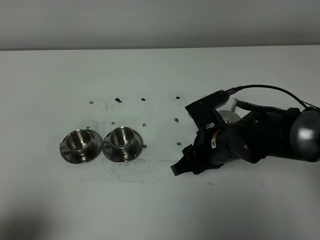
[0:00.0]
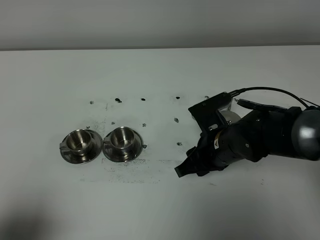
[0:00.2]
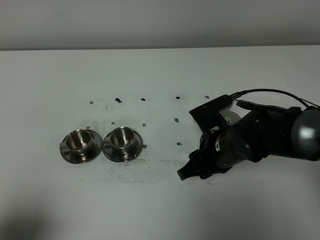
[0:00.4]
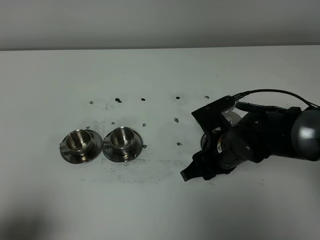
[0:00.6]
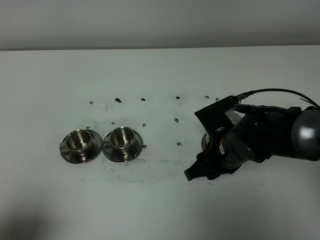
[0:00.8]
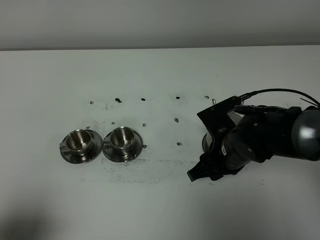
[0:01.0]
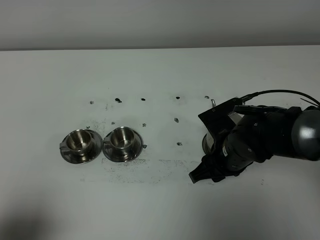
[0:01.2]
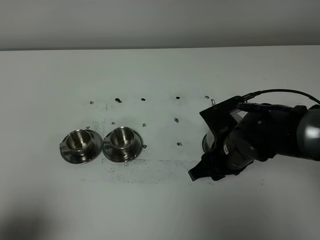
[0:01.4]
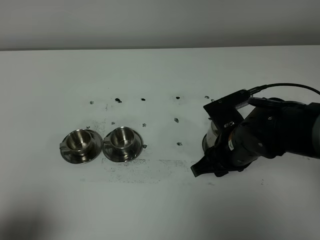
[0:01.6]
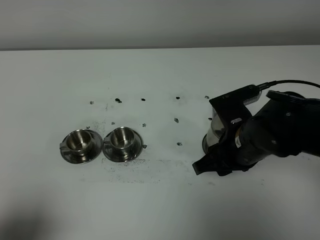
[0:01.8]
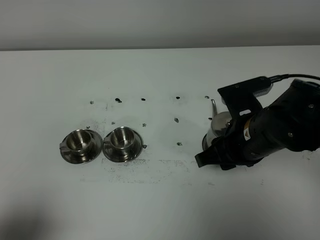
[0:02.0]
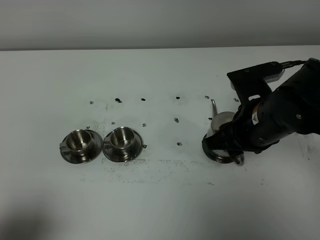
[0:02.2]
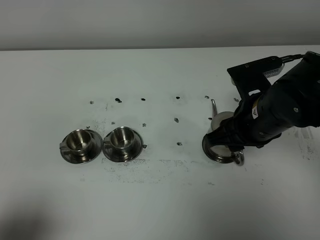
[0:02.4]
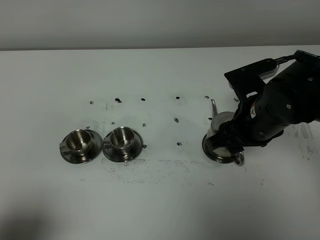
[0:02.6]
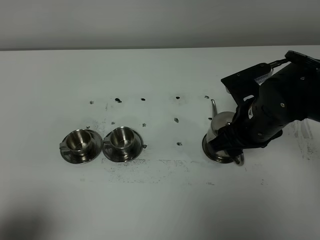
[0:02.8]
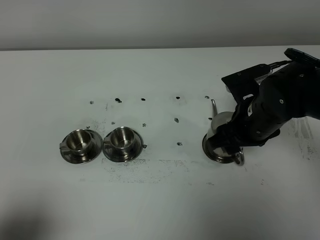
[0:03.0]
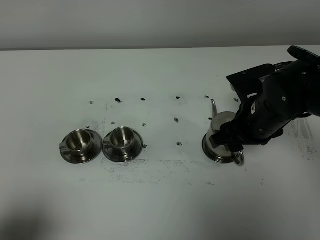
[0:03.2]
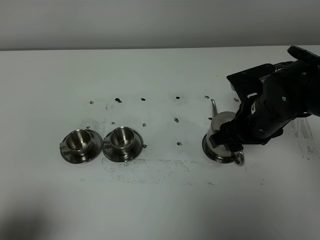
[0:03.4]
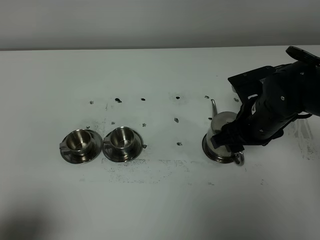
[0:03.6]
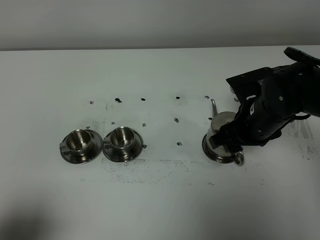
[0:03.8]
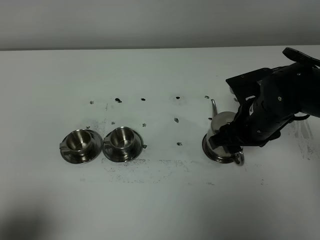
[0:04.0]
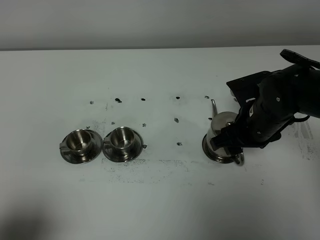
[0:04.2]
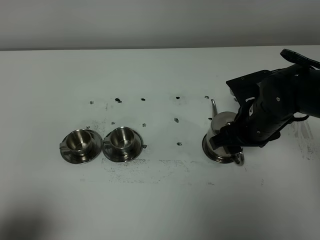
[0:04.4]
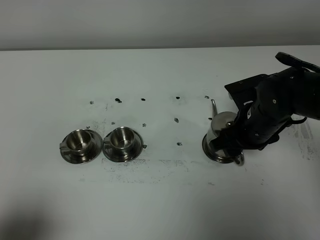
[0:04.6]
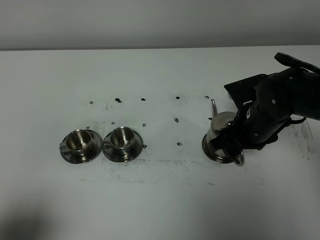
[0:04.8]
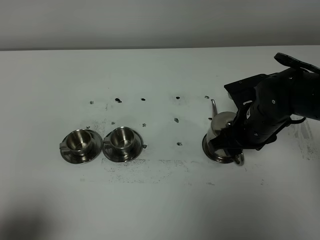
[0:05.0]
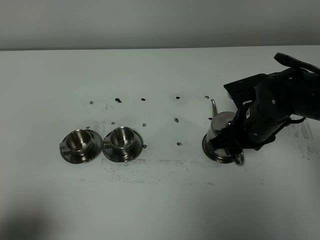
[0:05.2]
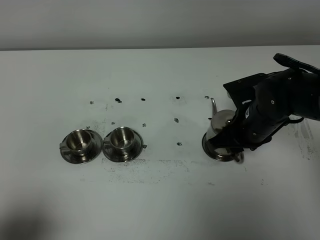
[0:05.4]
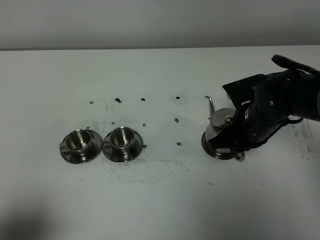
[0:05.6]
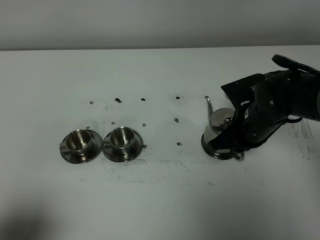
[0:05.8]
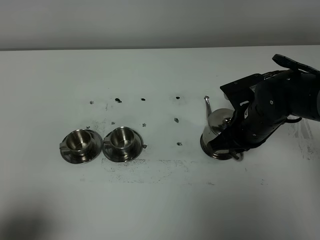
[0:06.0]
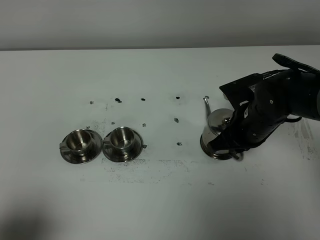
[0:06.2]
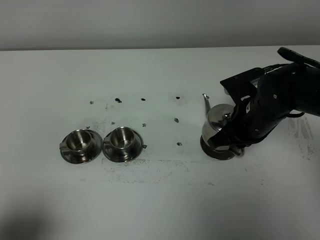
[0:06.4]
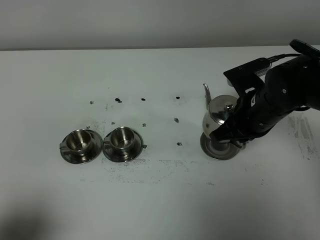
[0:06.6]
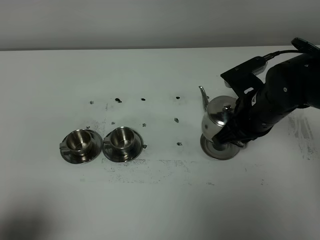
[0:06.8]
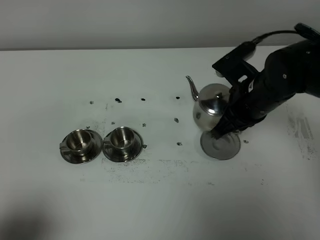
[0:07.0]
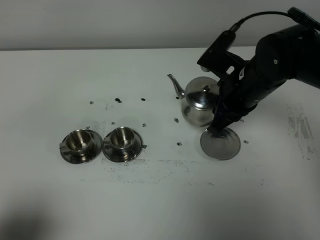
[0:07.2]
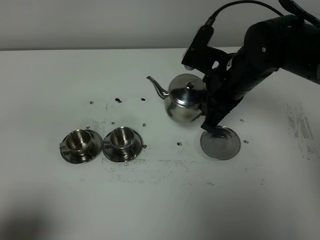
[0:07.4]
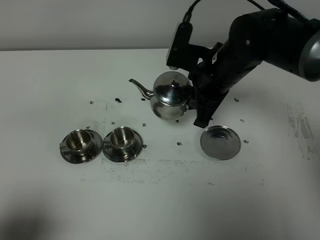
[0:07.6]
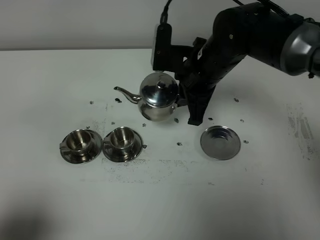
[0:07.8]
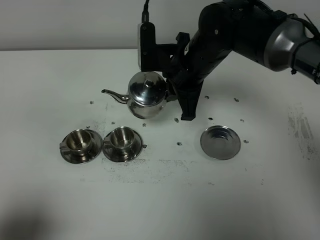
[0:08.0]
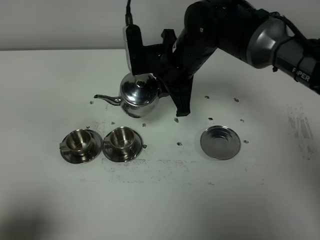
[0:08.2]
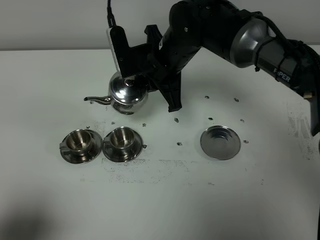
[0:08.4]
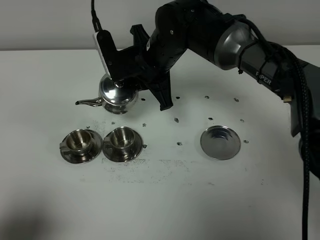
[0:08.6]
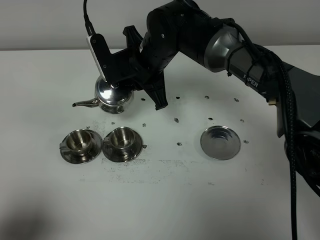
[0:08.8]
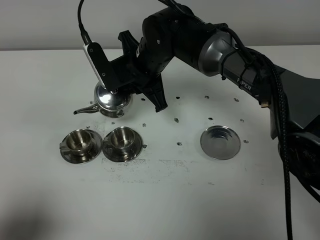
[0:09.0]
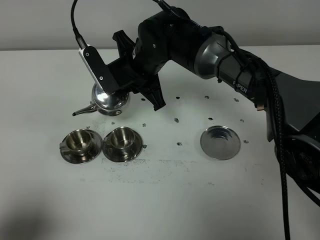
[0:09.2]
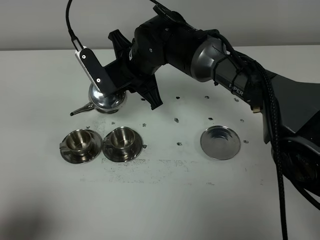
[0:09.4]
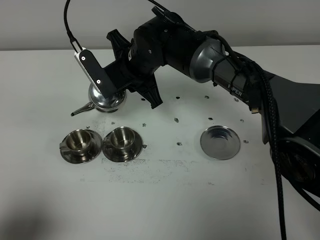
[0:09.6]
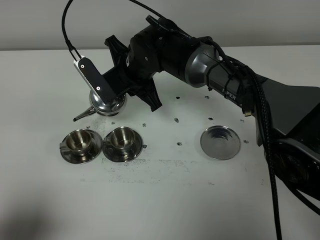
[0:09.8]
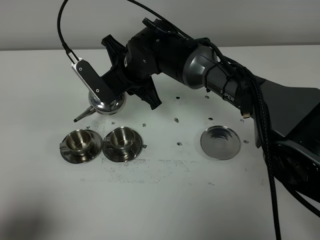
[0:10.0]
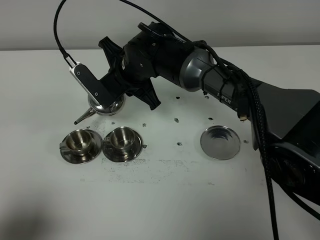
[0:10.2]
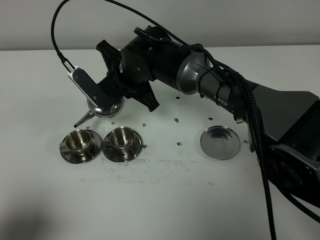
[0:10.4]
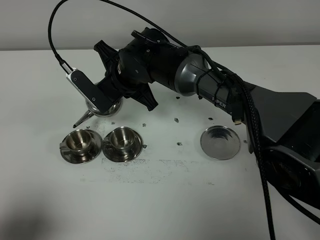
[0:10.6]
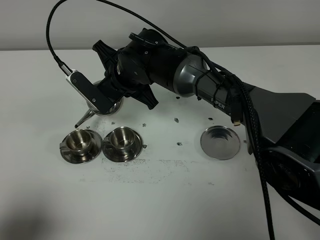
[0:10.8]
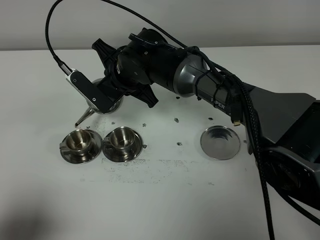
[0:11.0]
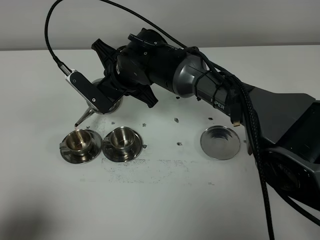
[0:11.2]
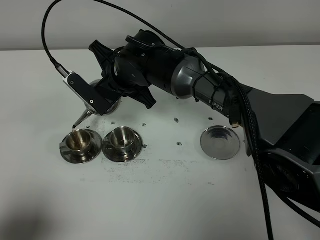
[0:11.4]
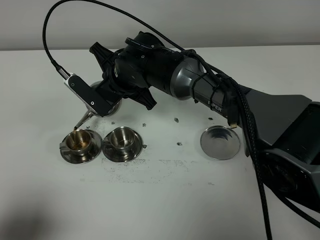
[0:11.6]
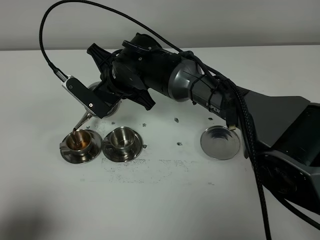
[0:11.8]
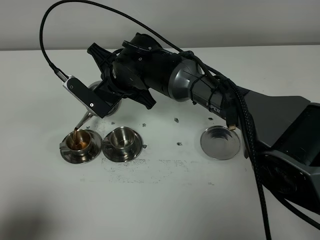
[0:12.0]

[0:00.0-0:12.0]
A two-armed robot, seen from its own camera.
Task of the whole recording: grasp the stainless steel teapot and pour the tea into the two stainless steel teacups one by one, put the stainless steel teapot back in its original place.
Step, 0:00.0 to 0:06.4: Pick up the teapot with the right gripper.
0:00.0 to 0:01.6: The grippers move only a little.
0:01.6 to 0:03.0: The right gripper ends up about 5 cm from where it was, and opens its fingers.
0:03.0 to 0:04.4: There are only small adjustments of the grippers.
0:04.4 to 0:06.0: The right gripper closes.
0:06.0 to 0:07.6: The right gripper goes about 10 cm upward and to the left.
0:07.6 to 0:09.0: The right gripper travels to the left by approximately 10 cm.
0:10.4 to 0:12.0: There are only small adjustments of the grippers.

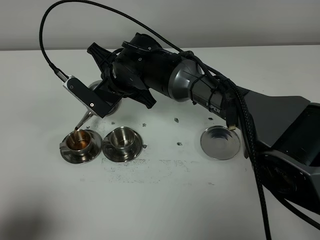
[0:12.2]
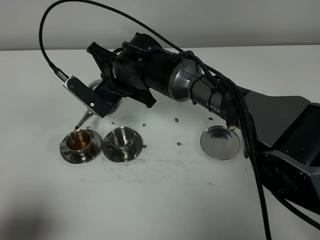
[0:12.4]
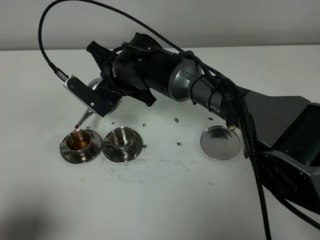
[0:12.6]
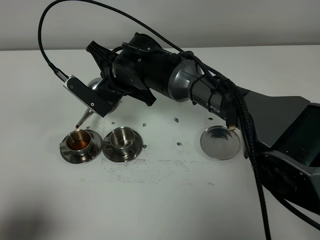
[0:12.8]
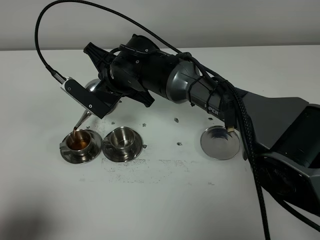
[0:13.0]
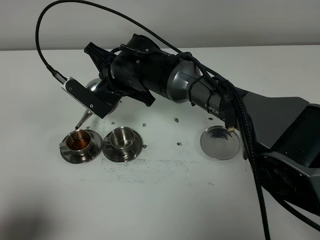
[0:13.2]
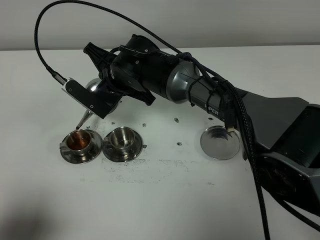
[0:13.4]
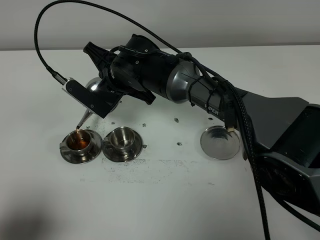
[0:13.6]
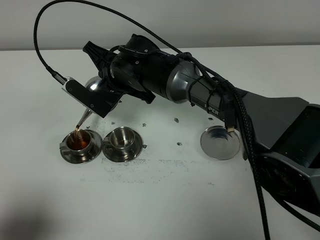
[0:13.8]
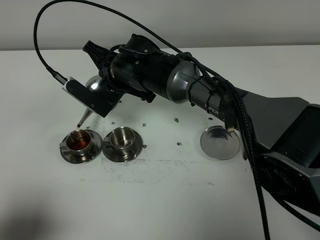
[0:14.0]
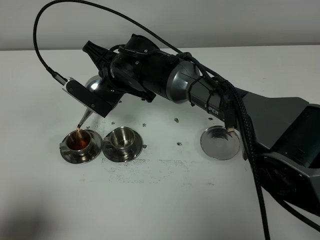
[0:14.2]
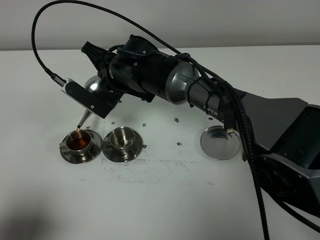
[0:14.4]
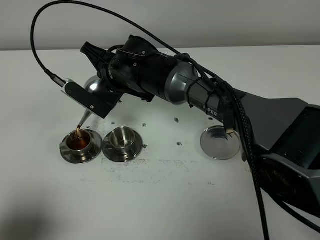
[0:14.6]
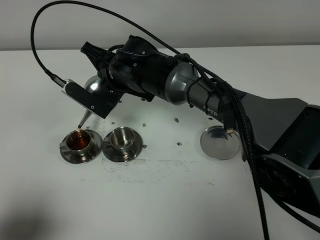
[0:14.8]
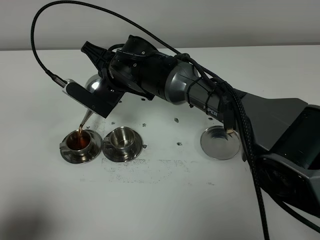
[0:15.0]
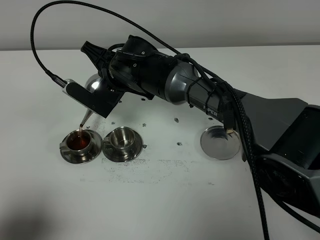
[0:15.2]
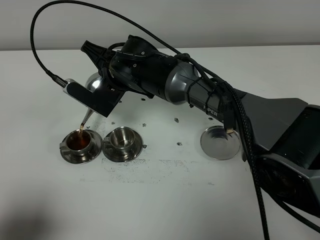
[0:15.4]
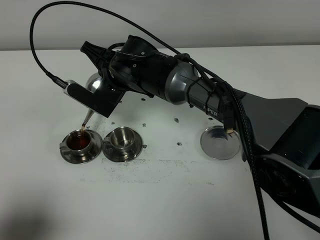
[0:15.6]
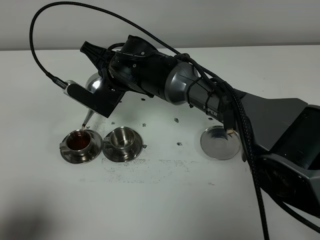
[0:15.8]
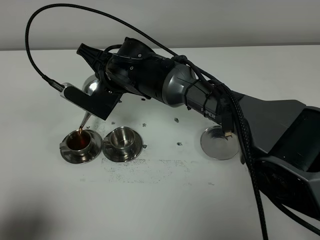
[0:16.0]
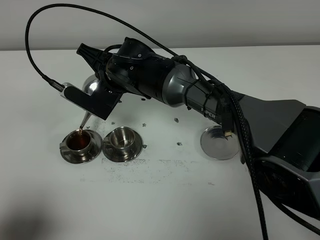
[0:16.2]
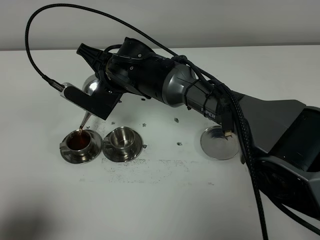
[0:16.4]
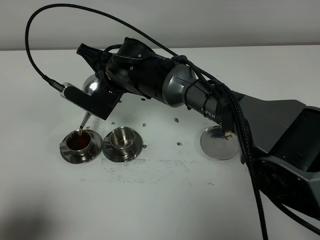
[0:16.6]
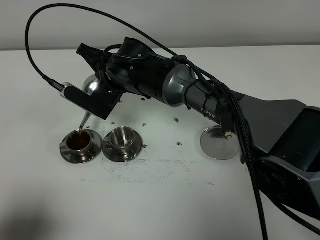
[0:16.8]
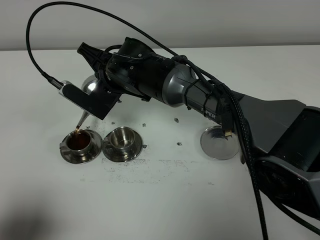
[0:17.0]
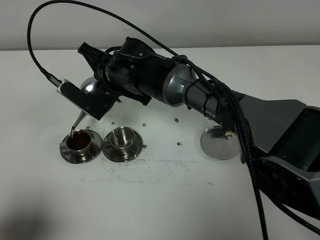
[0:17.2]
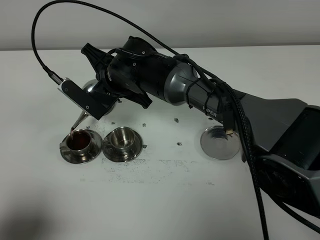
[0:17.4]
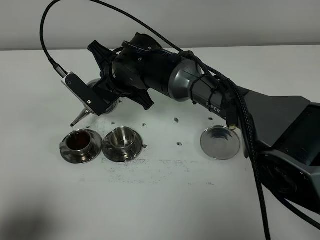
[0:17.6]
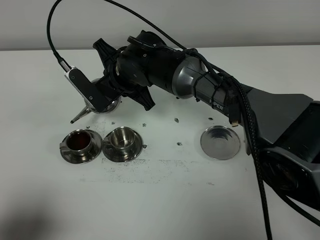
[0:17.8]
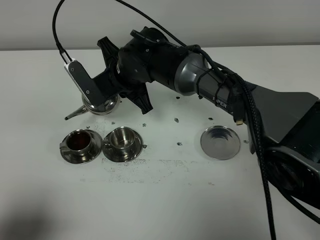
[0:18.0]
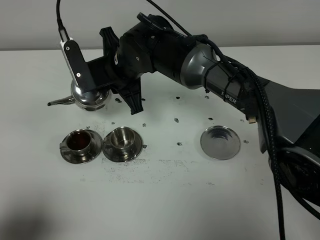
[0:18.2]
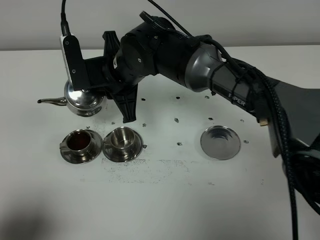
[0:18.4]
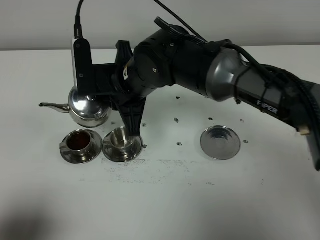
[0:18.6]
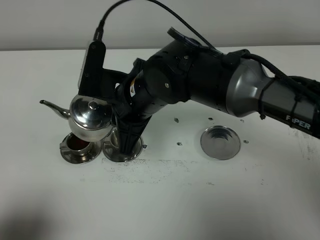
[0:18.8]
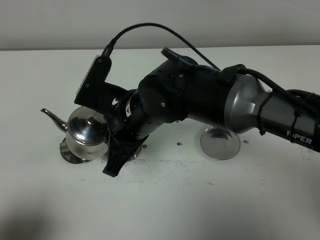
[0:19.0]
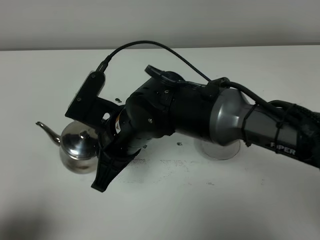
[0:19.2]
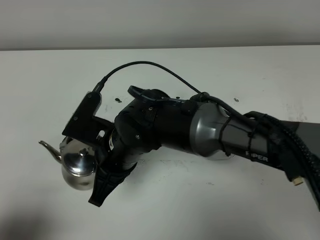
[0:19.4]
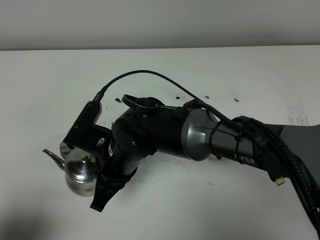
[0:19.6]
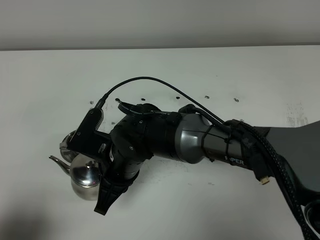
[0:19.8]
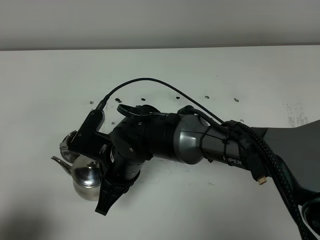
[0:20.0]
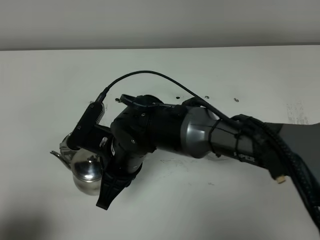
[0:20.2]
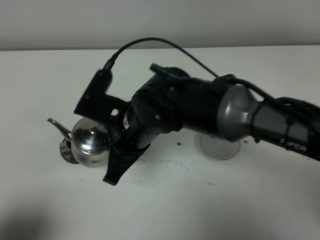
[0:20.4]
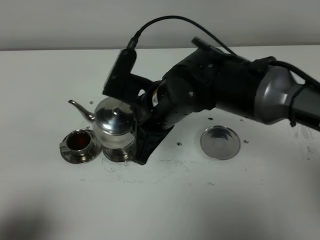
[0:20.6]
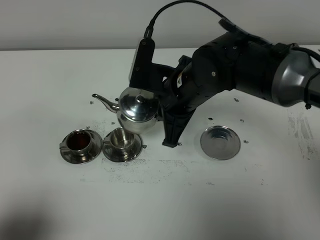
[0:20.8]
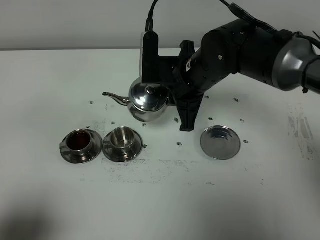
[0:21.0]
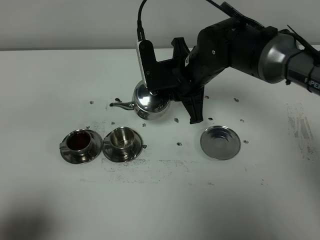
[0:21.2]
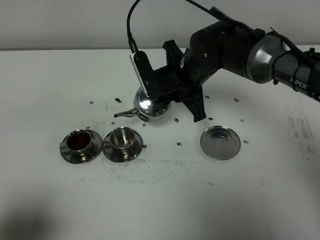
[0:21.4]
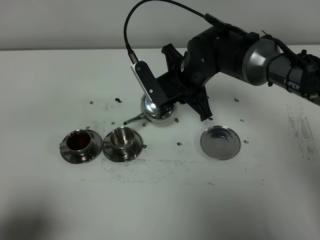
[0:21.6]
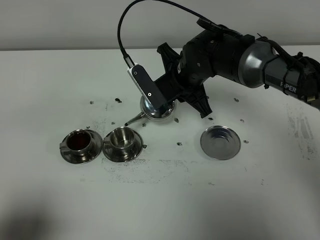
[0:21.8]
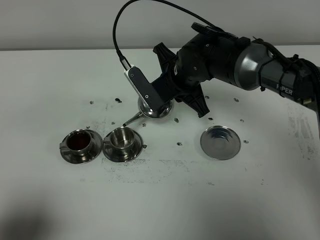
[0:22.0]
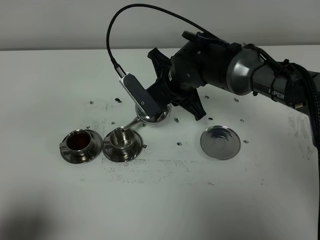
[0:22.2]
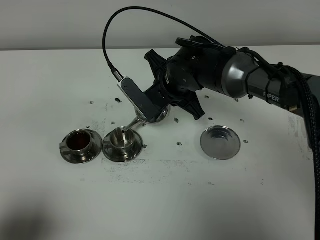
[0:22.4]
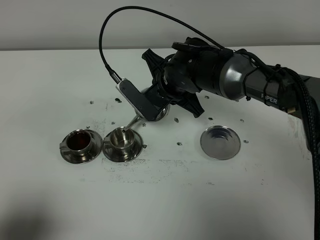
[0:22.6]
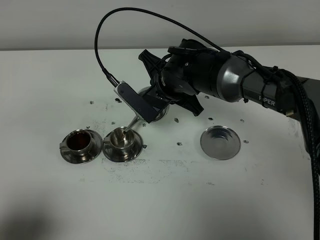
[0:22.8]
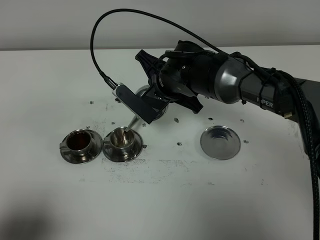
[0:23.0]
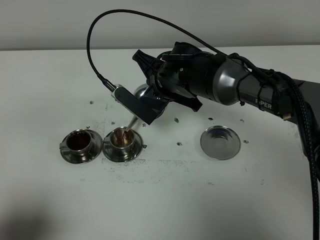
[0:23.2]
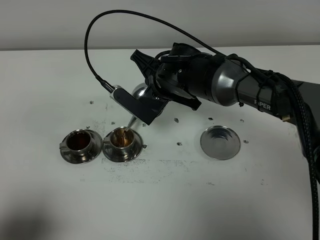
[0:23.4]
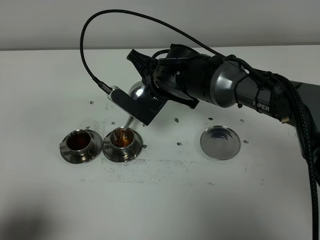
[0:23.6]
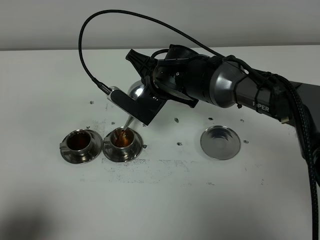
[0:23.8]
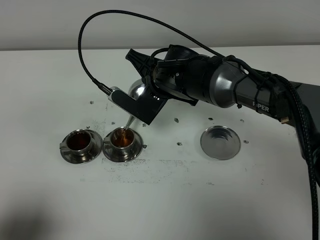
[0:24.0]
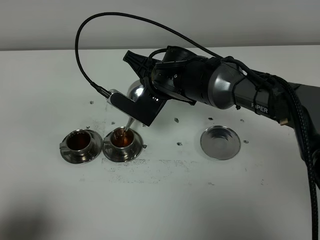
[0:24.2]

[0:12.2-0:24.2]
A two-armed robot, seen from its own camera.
Task of the whole recording: grasp the stainless steel teapot and pour the tea into the two stainless steel teacups one by one, put the stainless steel teapot back in its original place.
0:12.2 to 0:13.8: The grippers stay close to where they were, moving slightly.
0:13.8 to 0:15.2: Neither gripper changes place.
0:15.2 to 0:16.6: Both grippers stay about where they are.
0:18.2 to 0:19.8: The right gripper moves backward and downward, about 15 cm.
0:19.8 to 0:21.2: The right gripper goes approximately 20 cm forward, to the right and upward.
0:22.6 to 0:24.2: The grippers make only small movements.
